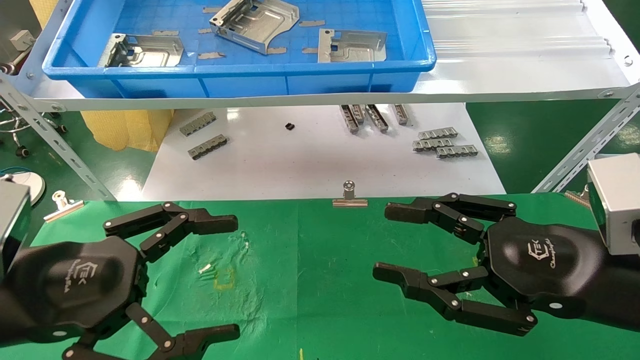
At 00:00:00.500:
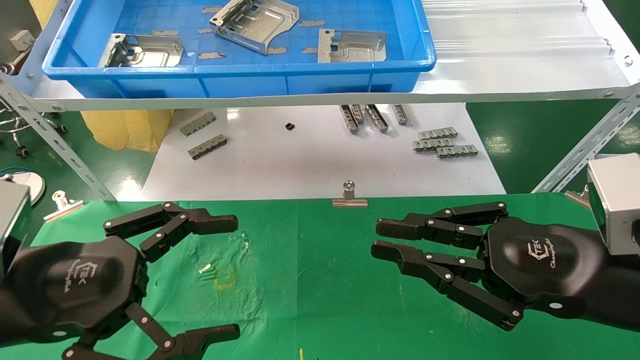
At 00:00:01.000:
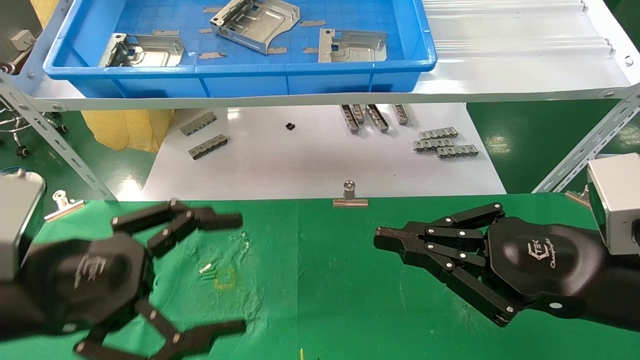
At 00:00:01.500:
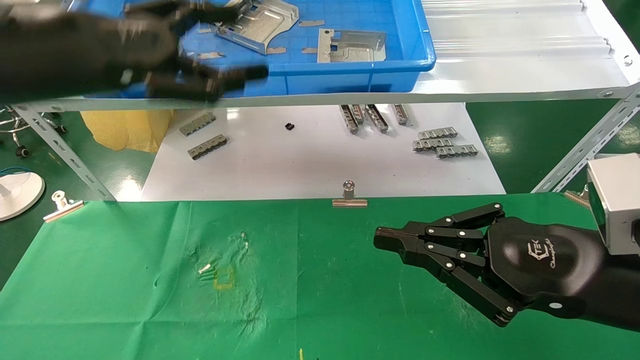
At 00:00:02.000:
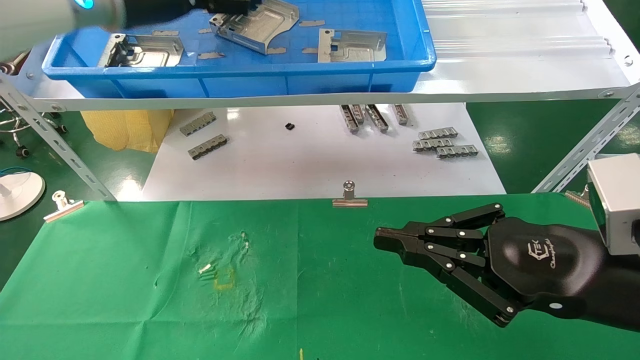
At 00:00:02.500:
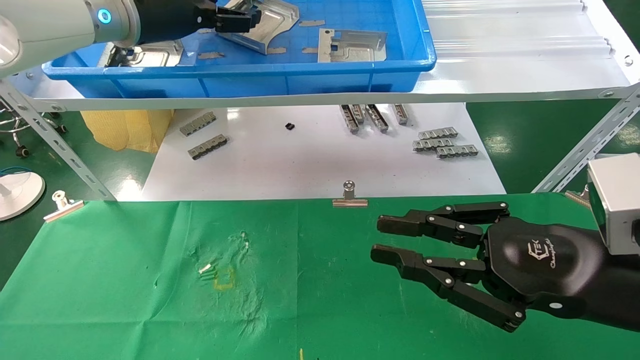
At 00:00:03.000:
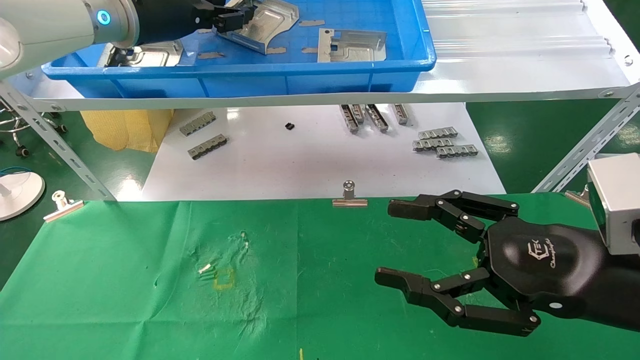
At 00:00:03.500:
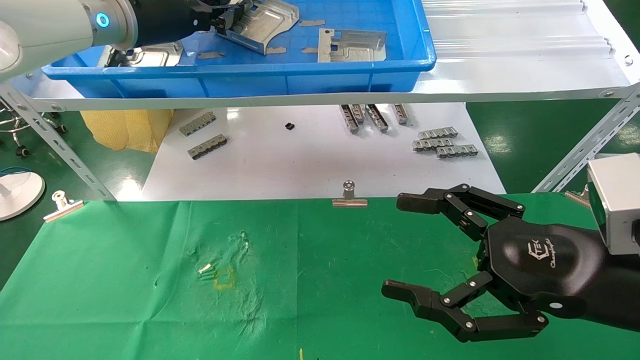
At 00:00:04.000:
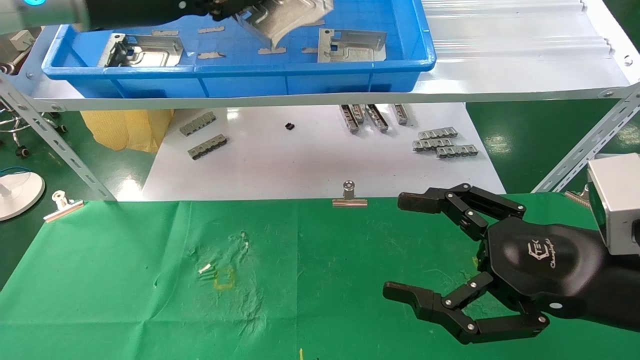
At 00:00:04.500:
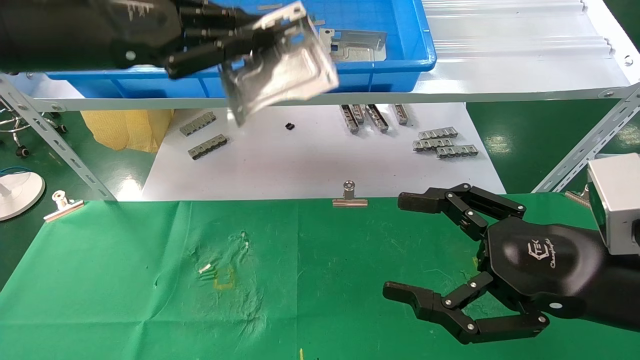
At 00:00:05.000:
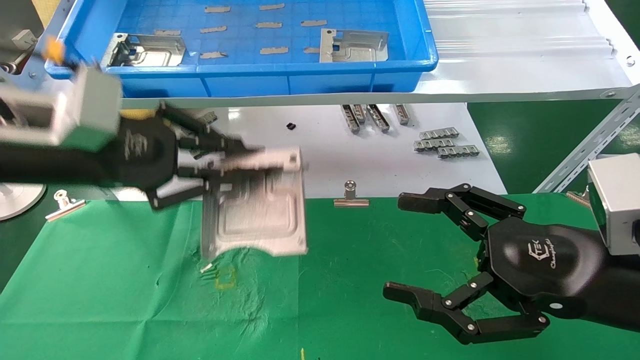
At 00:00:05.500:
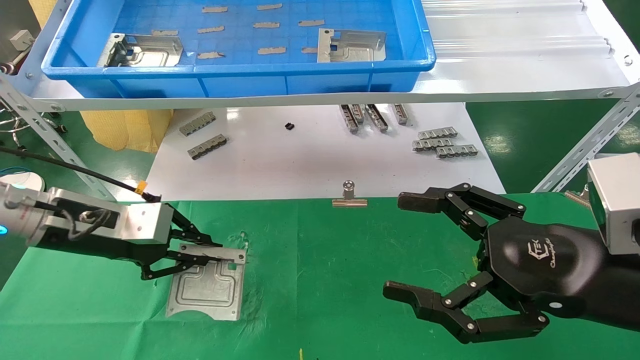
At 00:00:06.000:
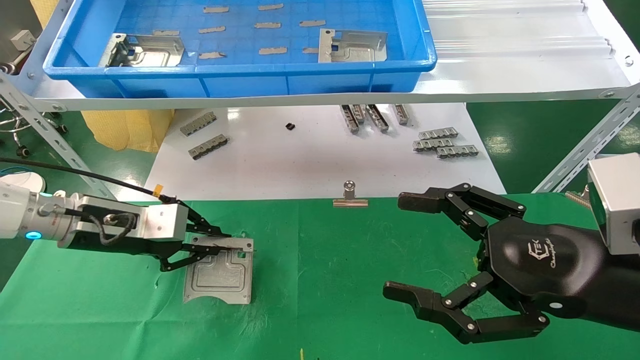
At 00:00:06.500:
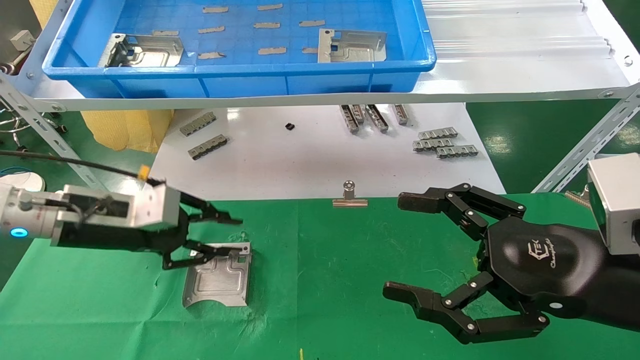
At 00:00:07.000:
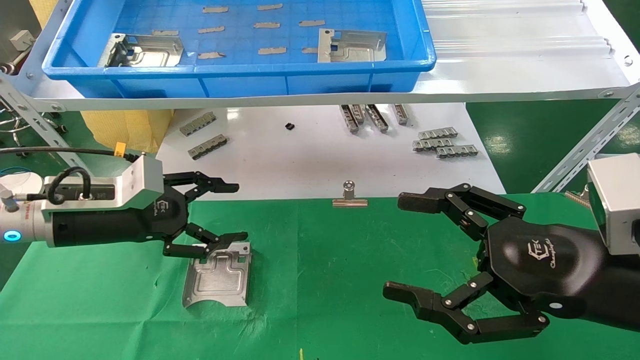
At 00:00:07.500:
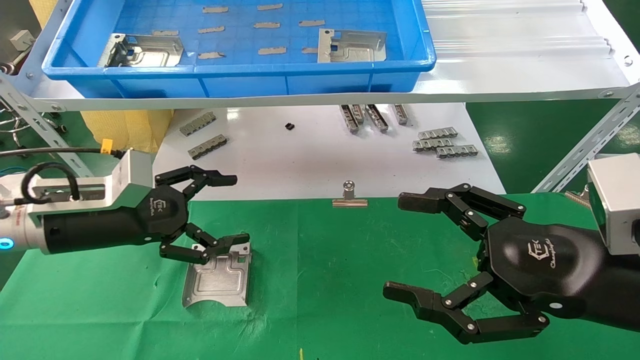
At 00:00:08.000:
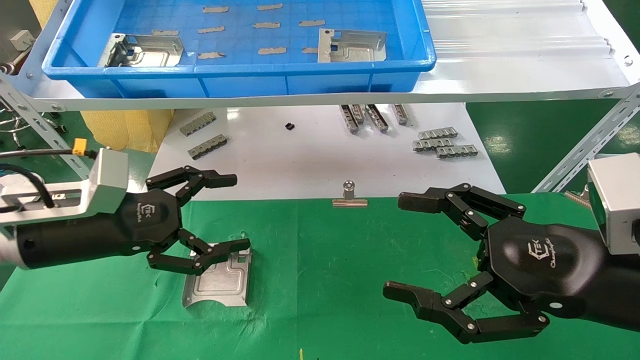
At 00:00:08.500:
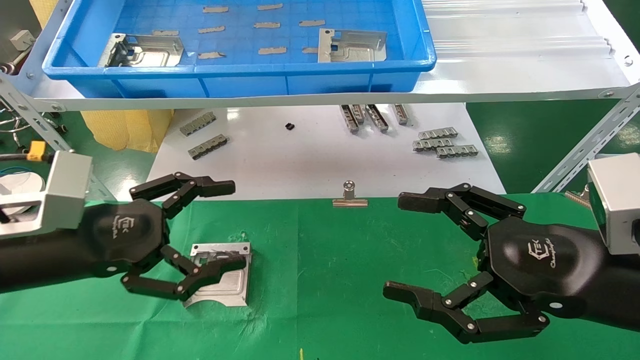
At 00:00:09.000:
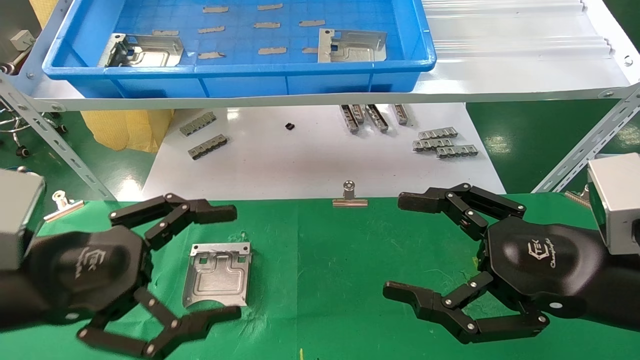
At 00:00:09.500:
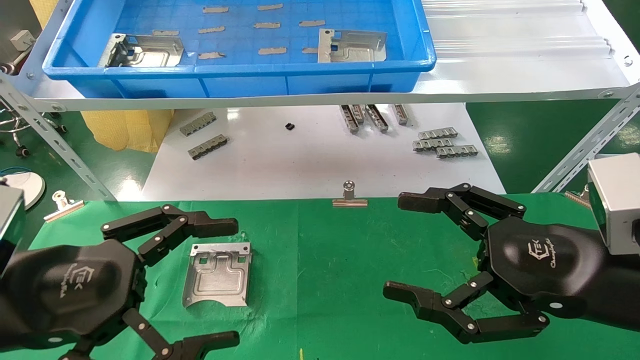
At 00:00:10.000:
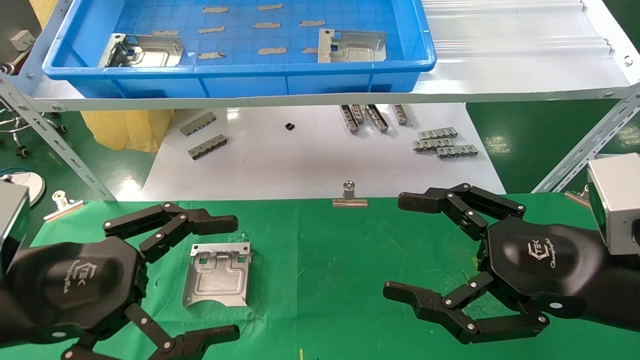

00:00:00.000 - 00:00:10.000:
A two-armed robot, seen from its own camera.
Task of the whole recording: use the mechanical arm to pick up the parts and place them on the table.
Step, 00:00:02.000 - 00:00:04.000: Pick up the hard drive bracket from the feeding area.
Step, 00:00:04.500 - 00:00:07.000: Place the hard drive bracket into the box.
00:00:00.000 - 00:00:02.000: The right gripper closes. Meanwhile the left gripper heads upward and forward, covering approximately 35 cm.
00:00:02.000 - 00:00:04.000: The right gripper opens; the left gripper closes up.
00:00:04.000 - 00:00:06.000: The left gripper is displaced downward by roughly 25 cm.
00:00:06.000 - 00:00:08.000: The left gripper moves backward, some 5 cm, and opens its fingers.
00:00:08.000 - 00:00:10.000: The left gripper heads backward, covering approximately 10 cm.

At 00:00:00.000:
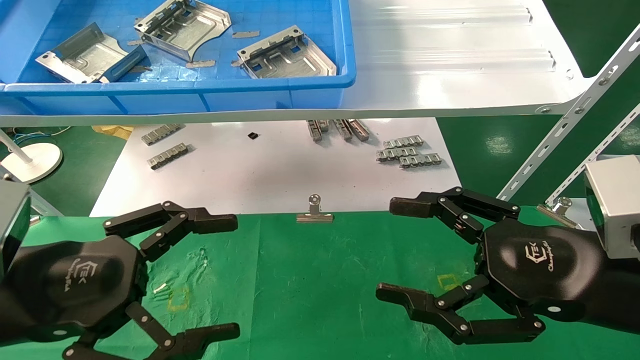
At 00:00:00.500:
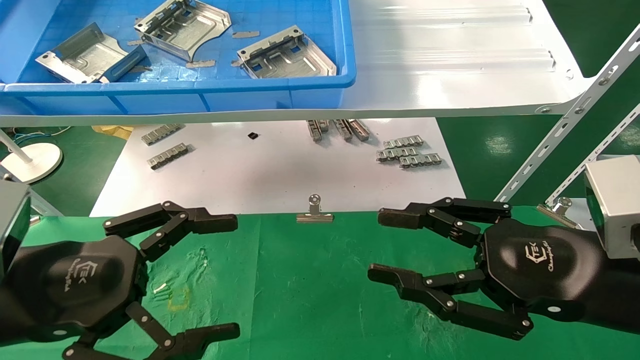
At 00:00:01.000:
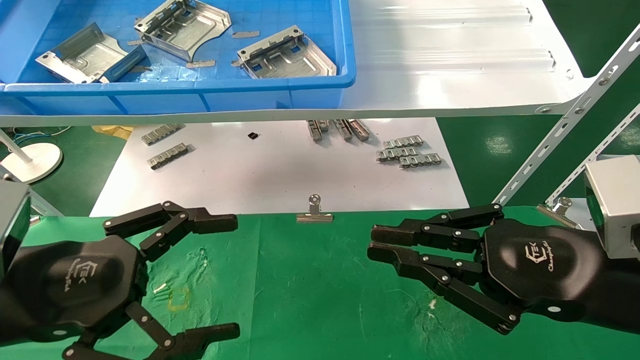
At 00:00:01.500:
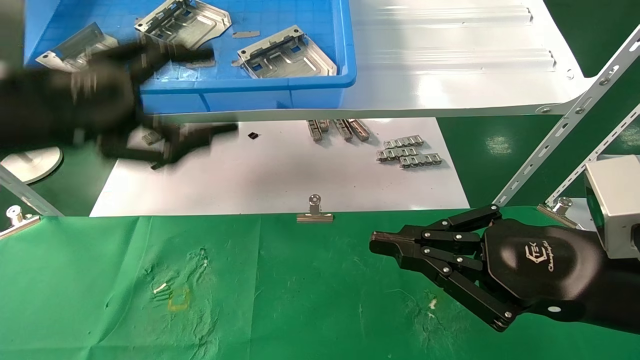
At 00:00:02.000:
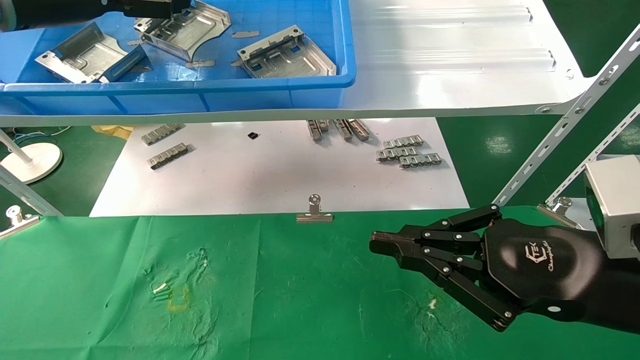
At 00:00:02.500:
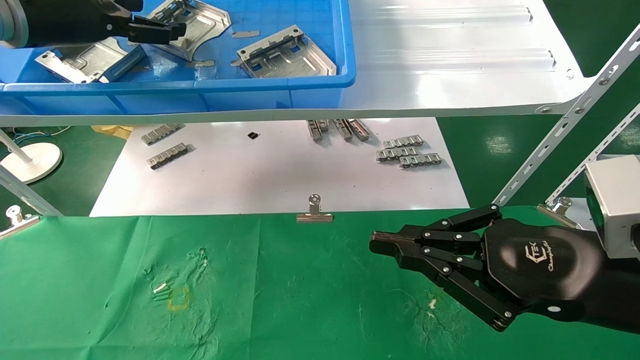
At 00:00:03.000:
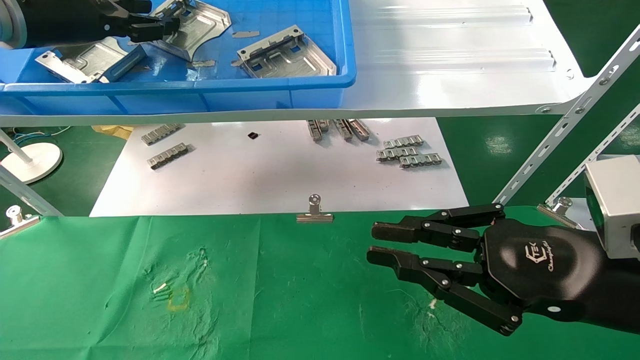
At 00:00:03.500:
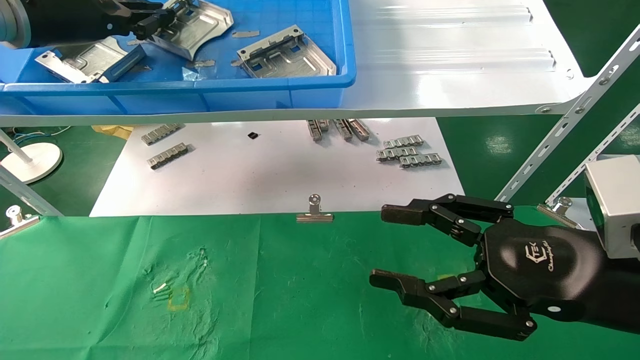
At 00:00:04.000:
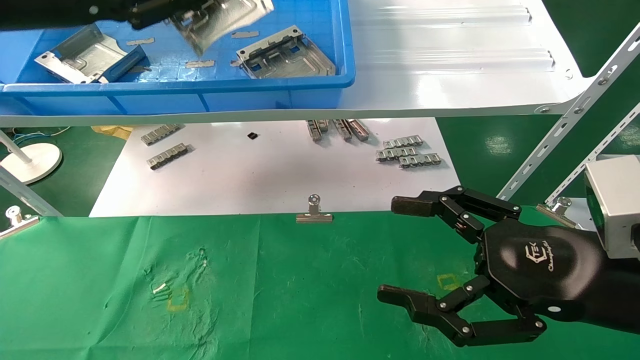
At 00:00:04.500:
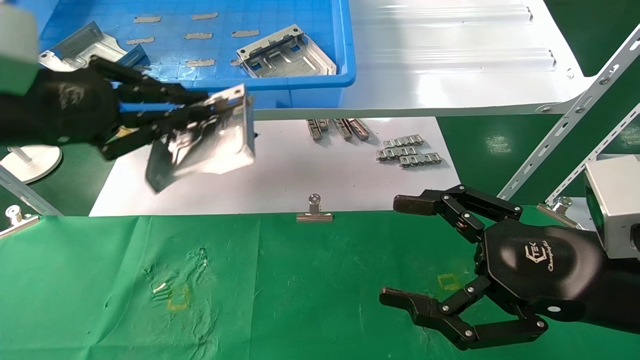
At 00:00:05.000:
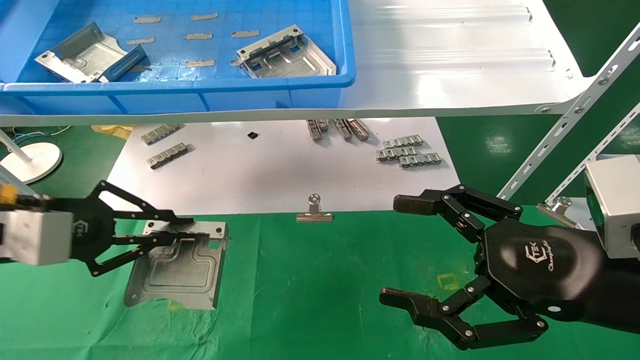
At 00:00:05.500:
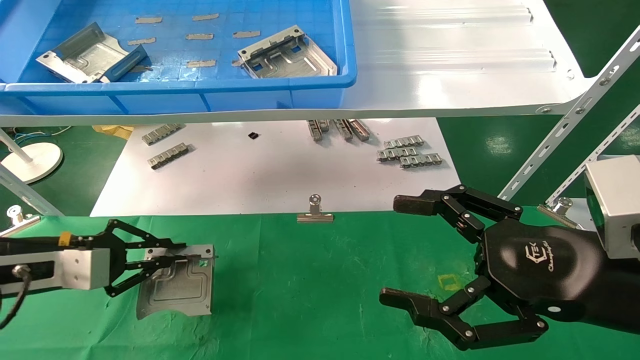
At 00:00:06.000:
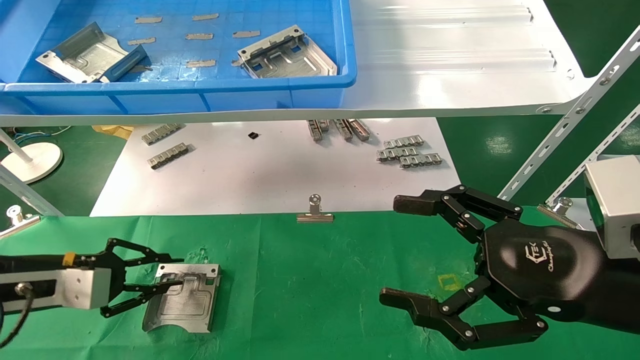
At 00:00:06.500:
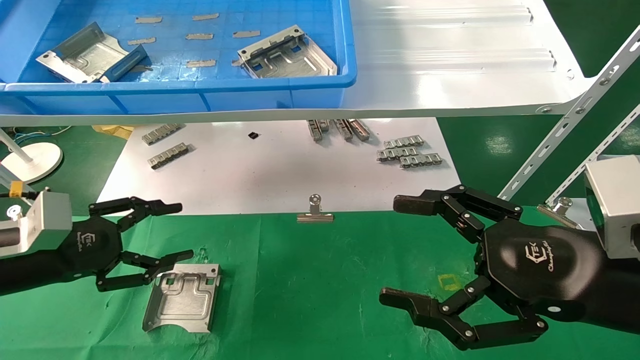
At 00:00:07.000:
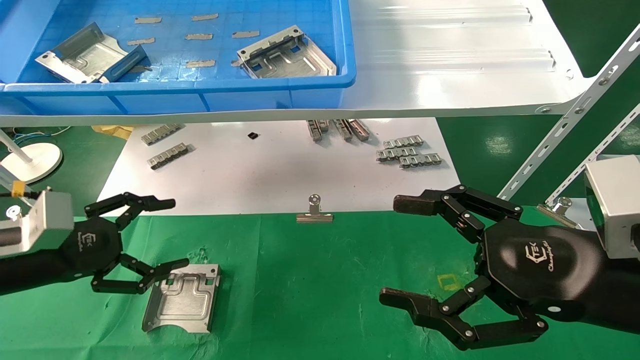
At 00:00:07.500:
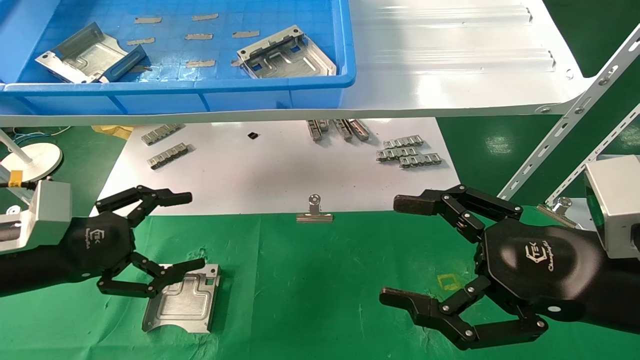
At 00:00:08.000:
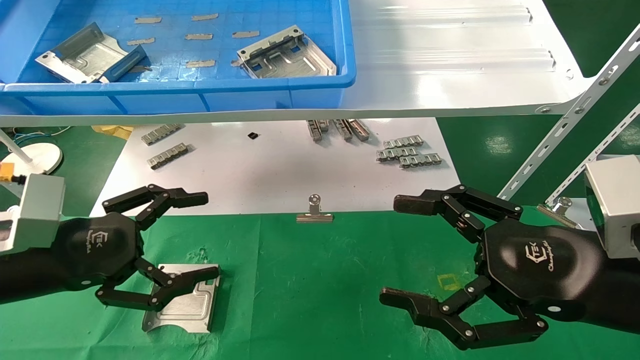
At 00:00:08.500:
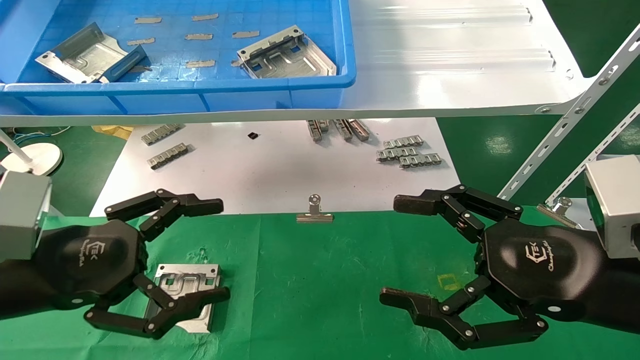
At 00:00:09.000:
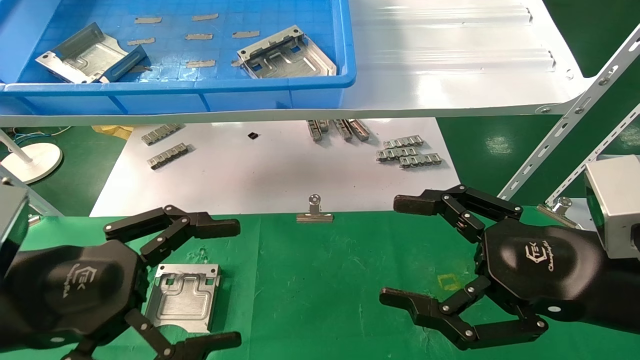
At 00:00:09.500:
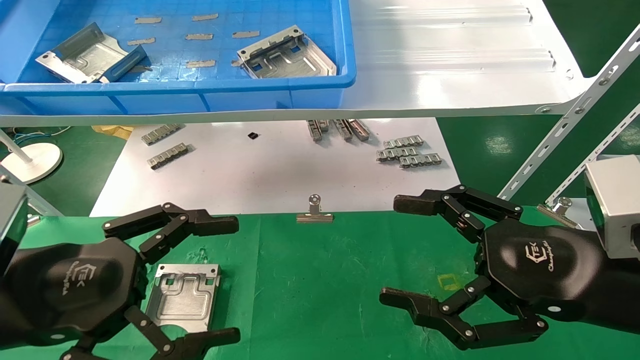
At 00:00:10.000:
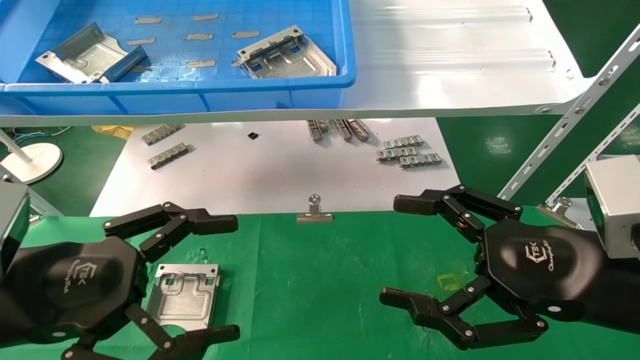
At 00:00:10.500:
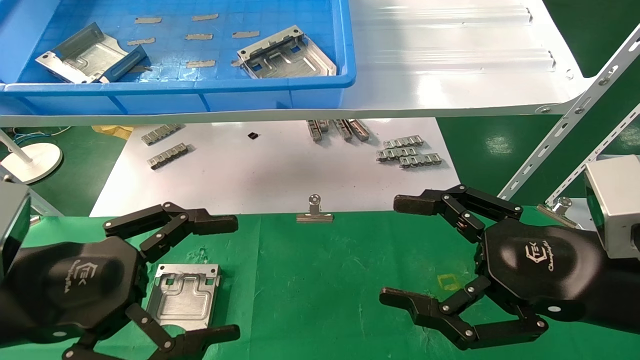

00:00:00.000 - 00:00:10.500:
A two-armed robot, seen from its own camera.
Task of the whole recording: use the mechanical arm to pick up the parts and place them on the table.
Step, 00:00:01.500 - 00:00:04.000: Pick up the hard drive bracket from the feeding area.
Step, 00:00:04.500 - 00:00:06.000: Place the hard drive bracket into the box.
00:00:00.000 - 00:00:02.000: The right gripper closes its fingers. Meanwhile the left gripper travels upward and forward by approximately 30 cm.
00:00:02.000 - 00:00:04.000: The right gripper opens. Meanwhile the left gripper travels backward by about 5 cm, and closes its fingers.
00:00:04.000 - 00:00:06.500: The left gripper shifts approximately 25 cm downward, and opens.
00:00:06.500 - 00:00:08.500: The left gripper heads to the right and backward, covering approximately 10 cm, and opens.
00:00:08.500 - 00:00:10.500: The grippers make only small movements.
